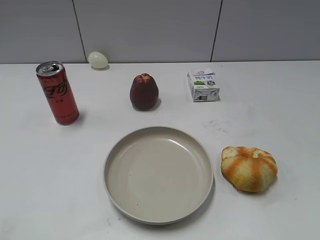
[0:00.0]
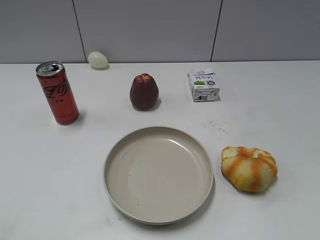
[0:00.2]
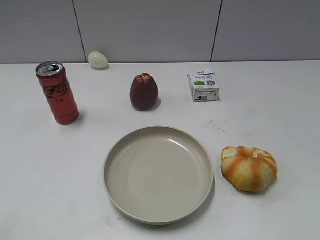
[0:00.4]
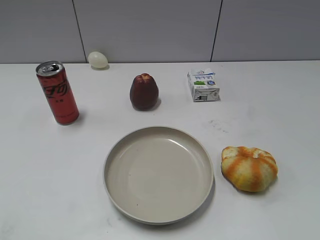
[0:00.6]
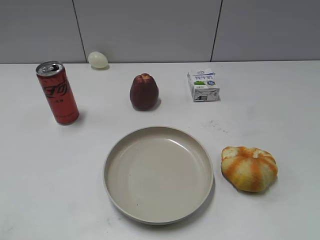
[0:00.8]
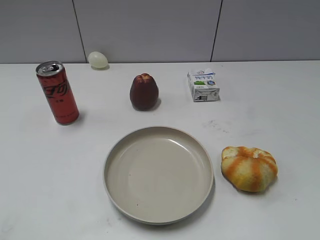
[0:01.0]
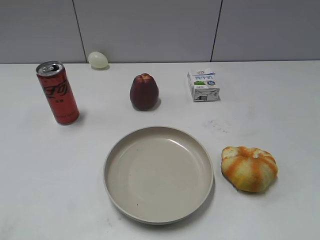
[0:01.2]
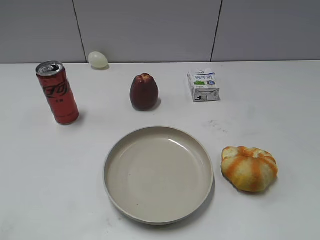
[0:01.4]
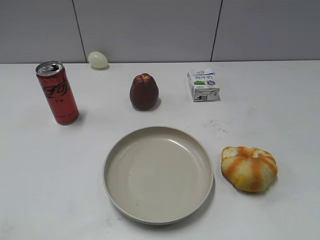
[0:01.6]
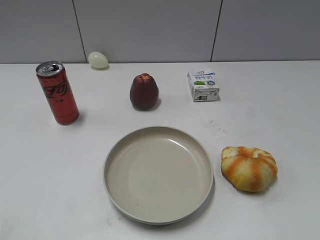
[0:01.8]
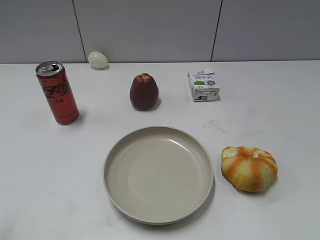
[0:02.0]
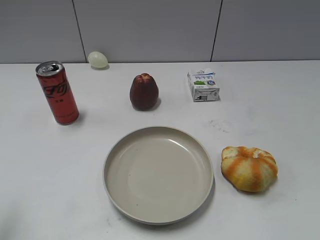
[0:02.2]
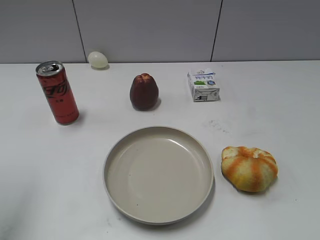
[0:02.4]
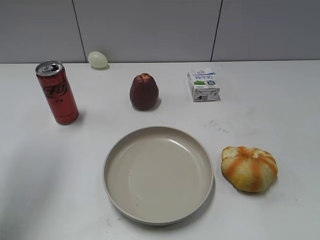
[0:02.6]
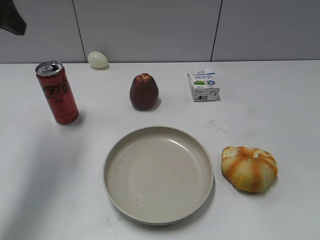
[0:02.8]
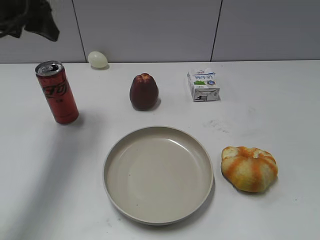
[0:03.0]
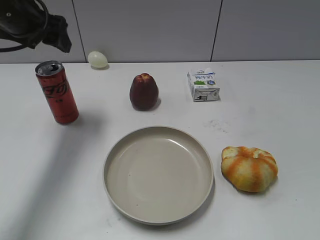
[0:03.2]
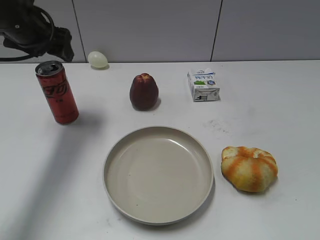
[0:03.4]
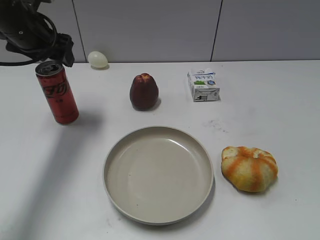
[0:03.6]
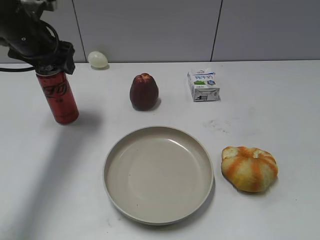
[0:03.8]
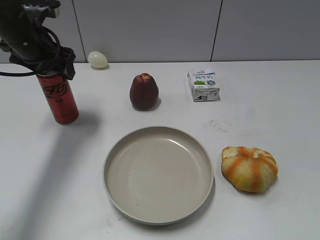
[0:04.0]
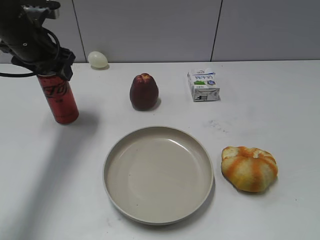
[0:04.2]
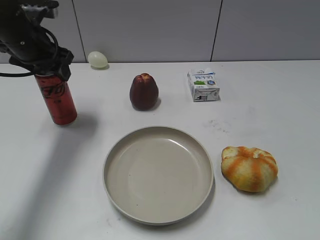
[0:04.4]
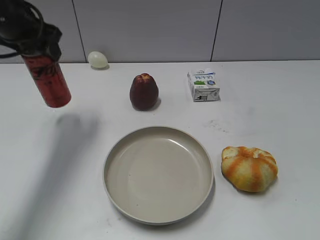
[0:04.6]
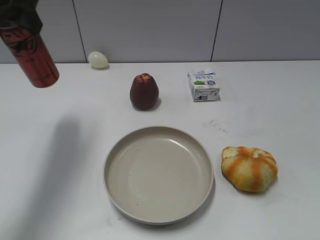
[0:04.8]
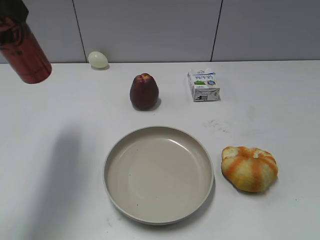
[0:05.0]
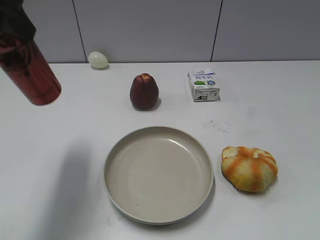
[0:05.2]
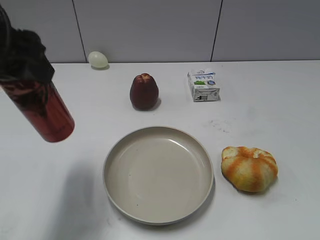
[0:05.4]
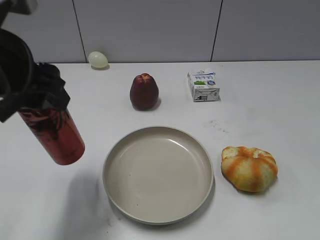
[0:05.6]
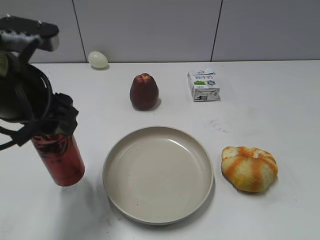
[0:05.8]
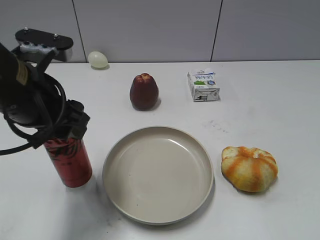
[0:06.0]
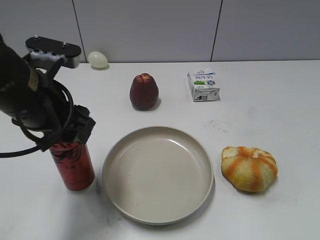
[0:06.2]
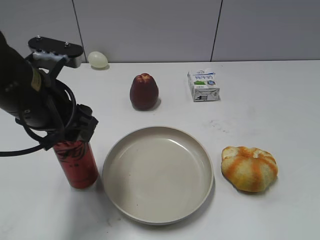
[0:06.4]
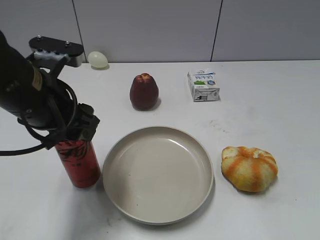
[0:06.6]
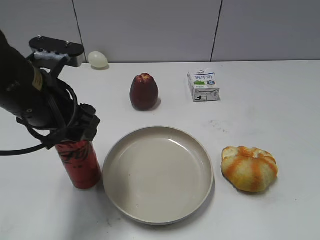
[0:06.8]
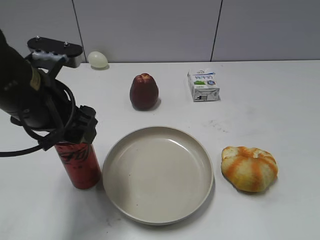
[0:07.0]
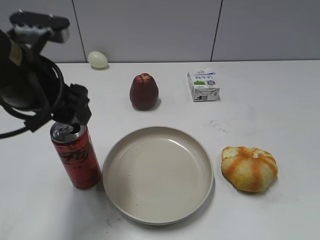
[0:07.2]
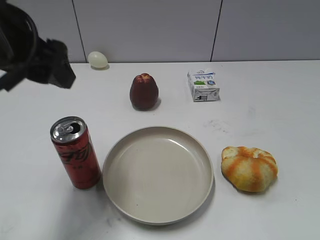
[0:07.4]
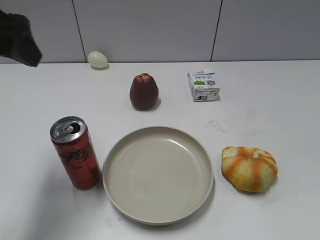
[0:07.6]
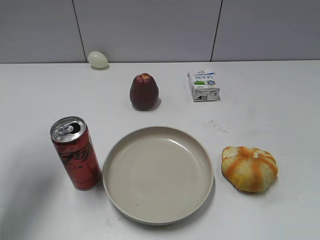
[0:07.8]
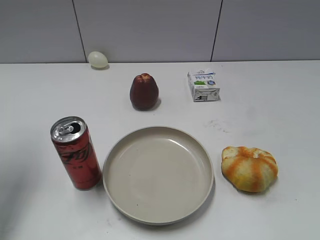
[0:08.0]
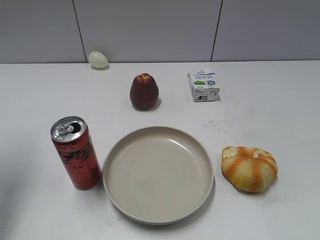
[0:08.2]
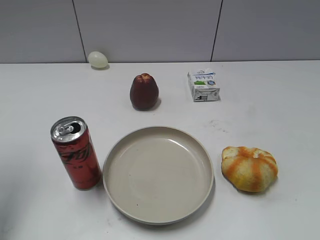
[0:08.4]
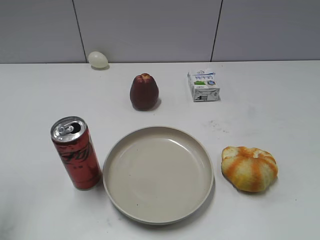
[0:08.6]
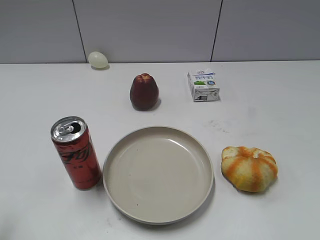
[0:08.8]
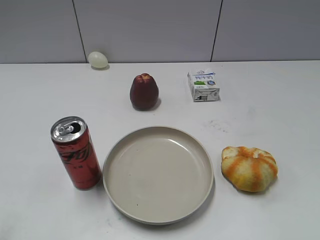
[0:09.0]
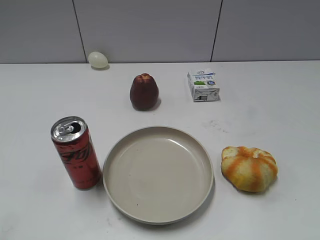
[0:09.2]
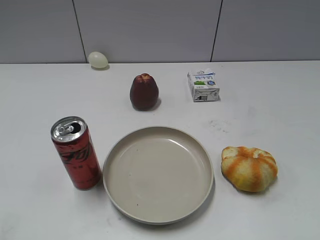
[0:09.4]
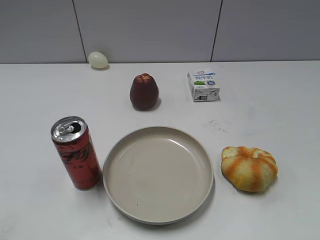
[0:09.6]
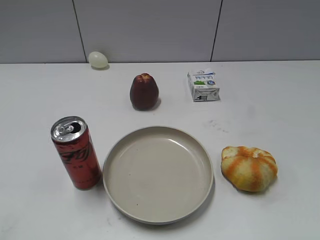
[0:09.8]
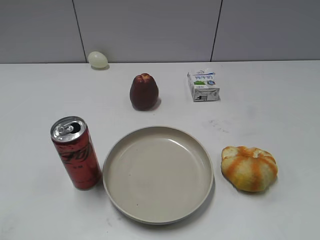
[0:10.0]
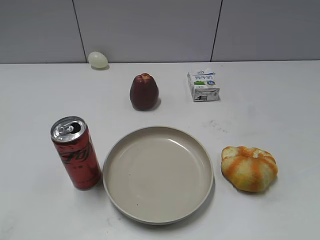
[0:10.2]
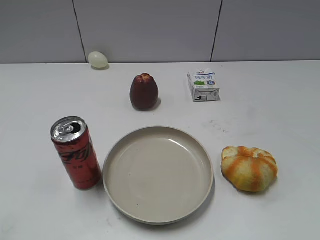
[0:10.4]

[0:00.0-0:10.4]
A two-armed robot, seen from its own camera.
Step, 0:01.8 to 0:04.2: Grasp the cola with left gripper.
Step, 0:04.6 to 0:07.2: Place the cola on the table with left gripper.
0:01.4 to 0:03.0: The left gripper travels forward by some 35 cm, and opens up.
0:03.0 to 0:04.4: The left gripper moves downward and forward, approximately 10 cm, and closes.
0:04.4 to 0:06.0: The left gripper moves backward, roughly 15 cm.
0:06.0 to 0:07.4: The left gripper is displaced upward by about 5 cm, and opens its fingers.
0:07.4 to 0:09.0: The left gripper travels to the left and backward by about 20 cm, and closes up.
